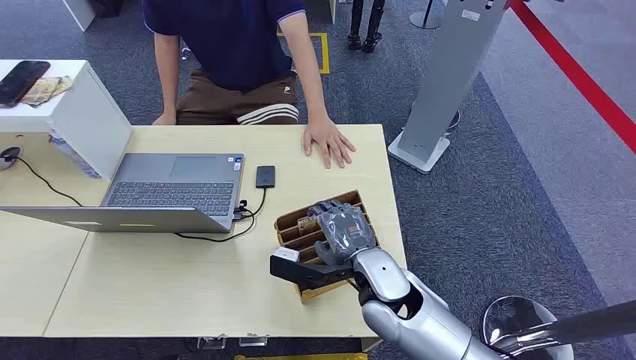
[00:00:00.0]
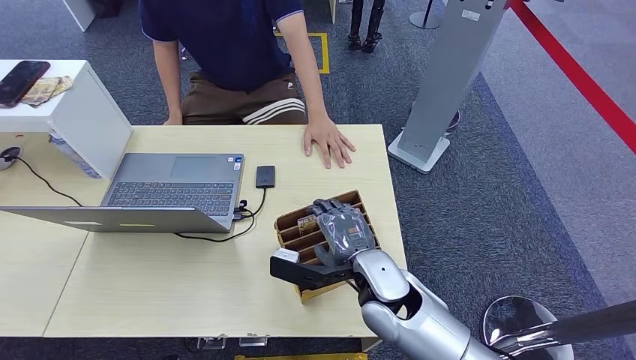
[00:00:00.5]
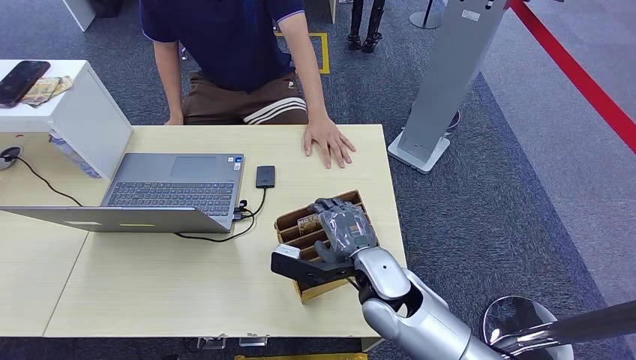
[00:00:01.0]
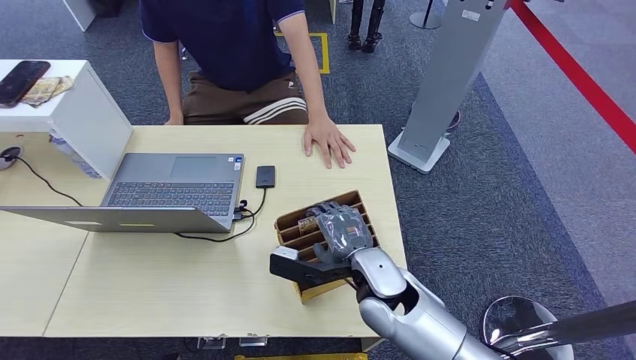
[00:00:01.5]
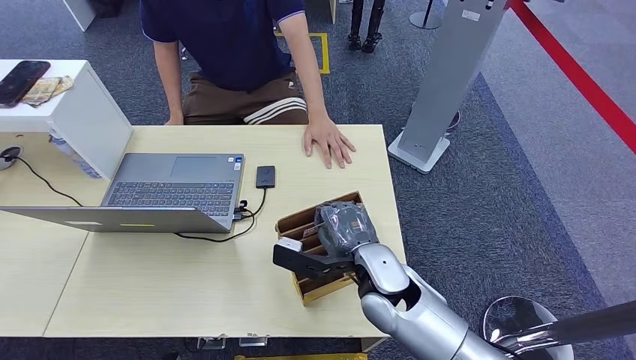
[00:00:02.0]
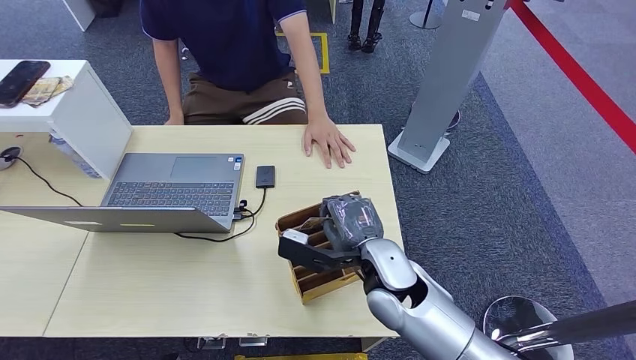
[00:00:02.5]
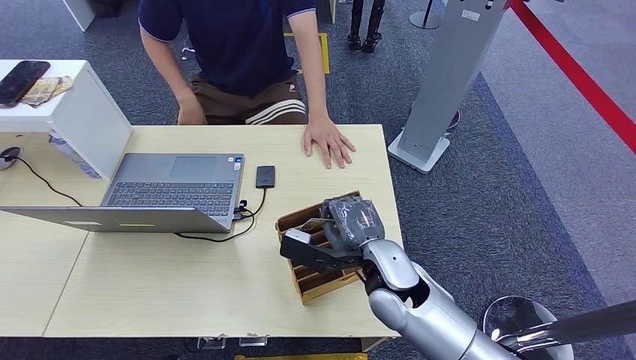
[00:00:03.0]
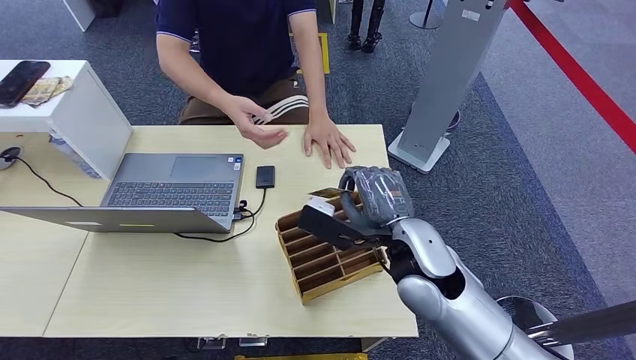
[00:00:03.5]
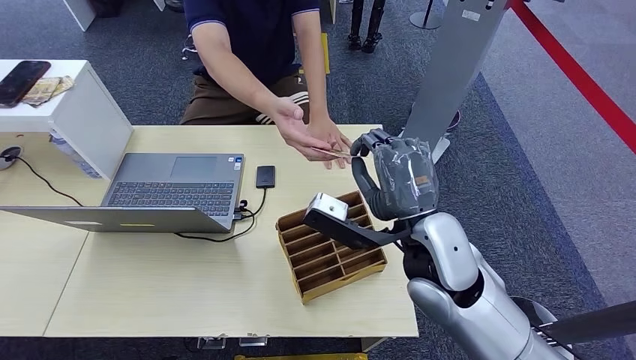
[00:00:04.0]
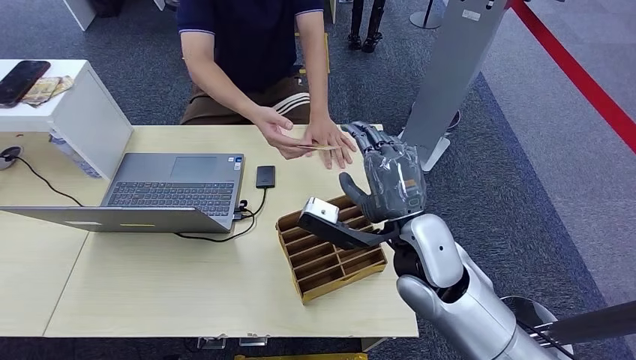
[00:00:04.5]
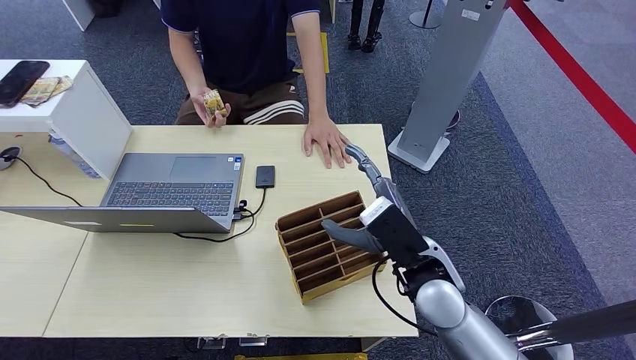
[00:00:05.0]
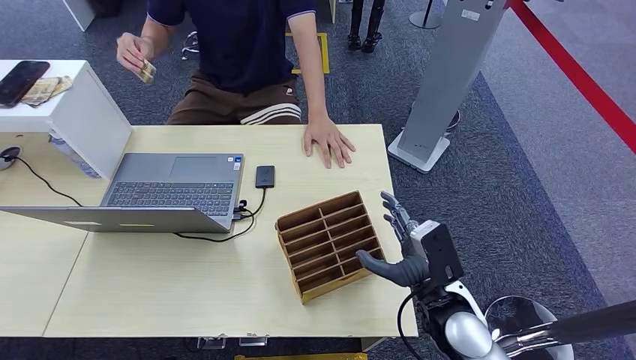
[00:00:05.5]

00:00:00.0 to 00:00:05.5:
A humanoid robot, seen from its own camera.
Step, 00:00:00.0 to 00:00:02.5: Pick up the key card from the card box.
Step, 00:00:03.5 to 00:00:05.5: Hand the key card to the target.
00:00:02.0 to 00:00:03.5: The right hand travels upward by roughly 5 cm.
00:00:03.5 to 00:00:05.5: The right hand is displaced downward, to the right and backward by roughly 15 cm.
